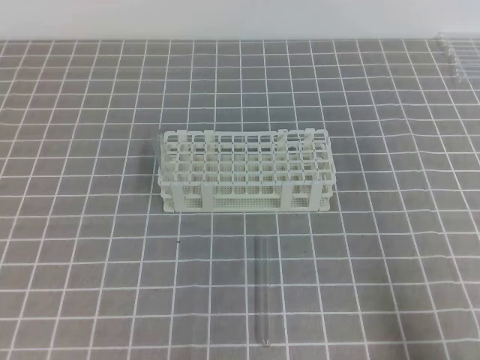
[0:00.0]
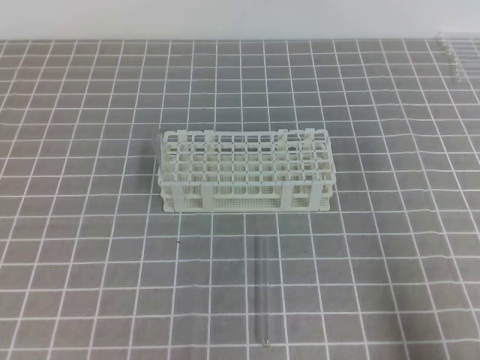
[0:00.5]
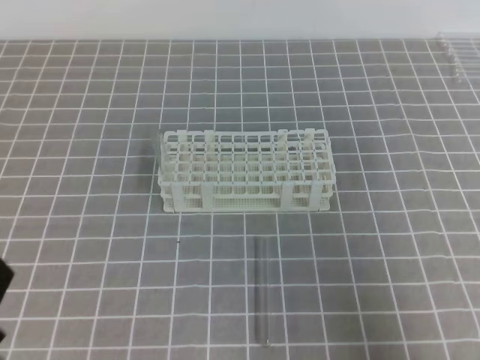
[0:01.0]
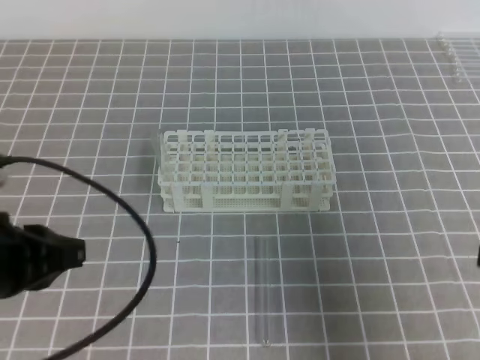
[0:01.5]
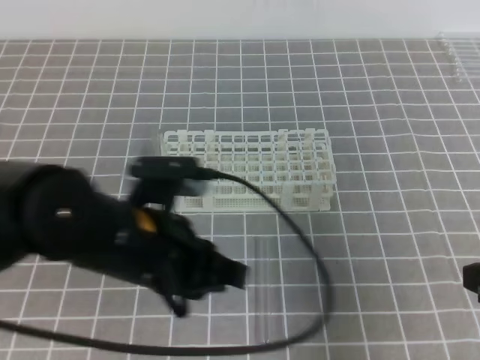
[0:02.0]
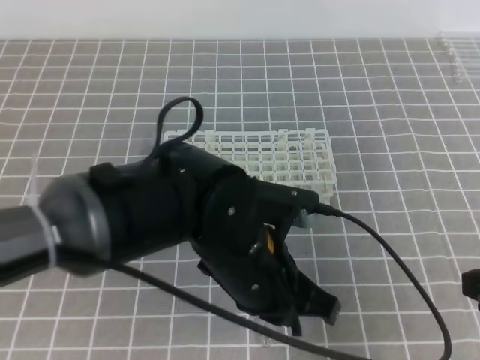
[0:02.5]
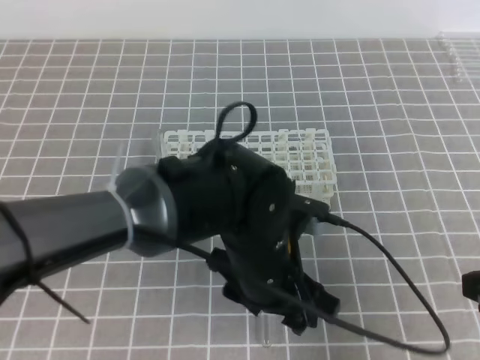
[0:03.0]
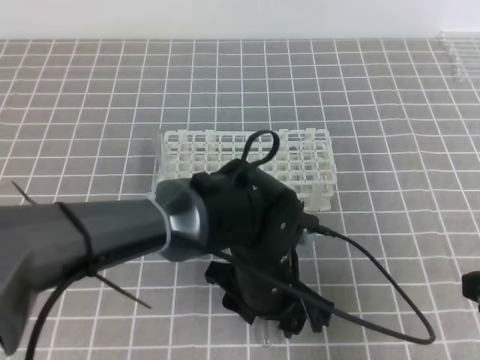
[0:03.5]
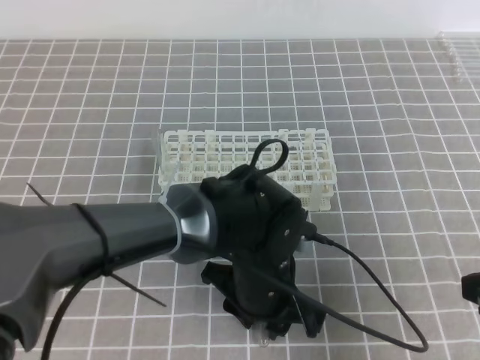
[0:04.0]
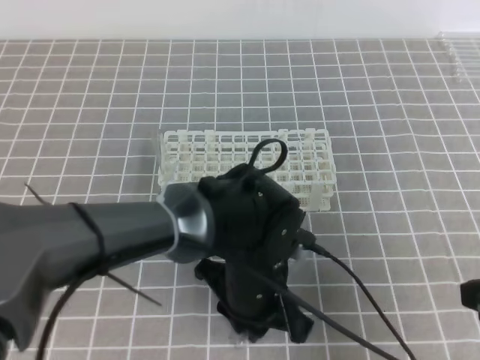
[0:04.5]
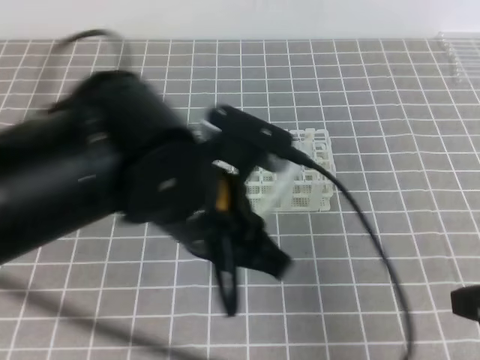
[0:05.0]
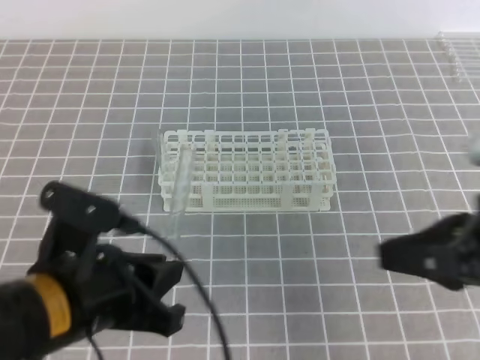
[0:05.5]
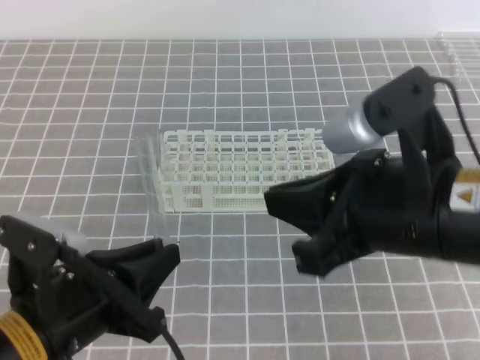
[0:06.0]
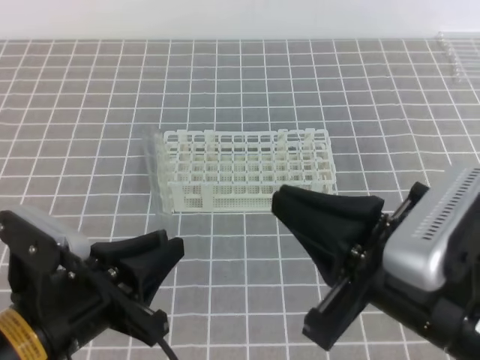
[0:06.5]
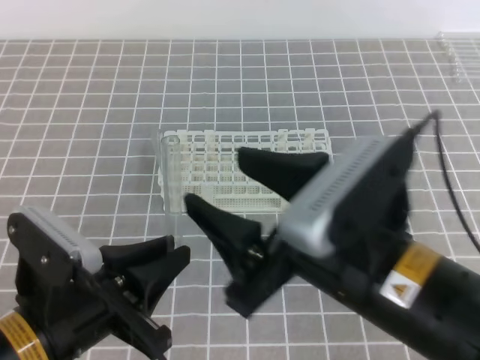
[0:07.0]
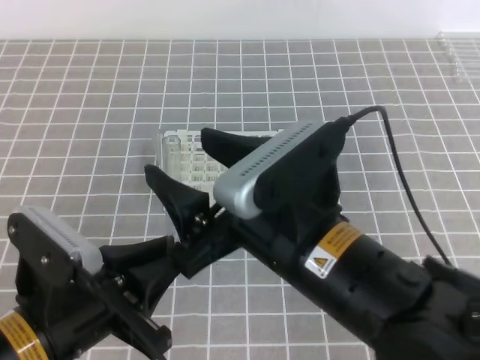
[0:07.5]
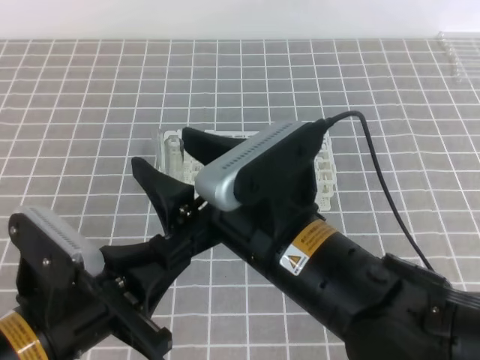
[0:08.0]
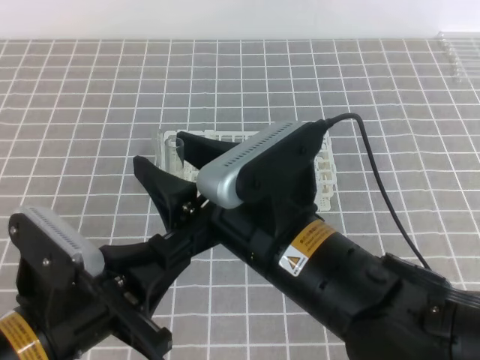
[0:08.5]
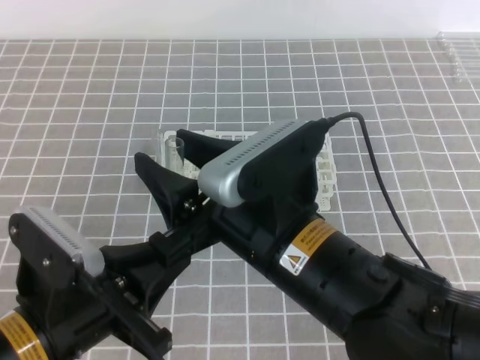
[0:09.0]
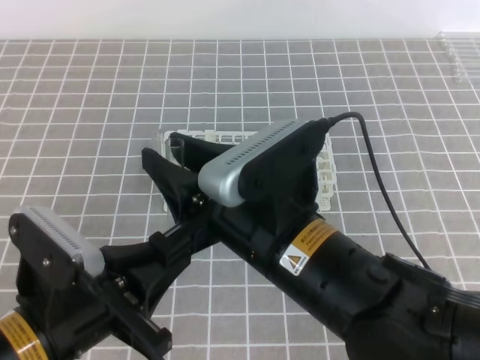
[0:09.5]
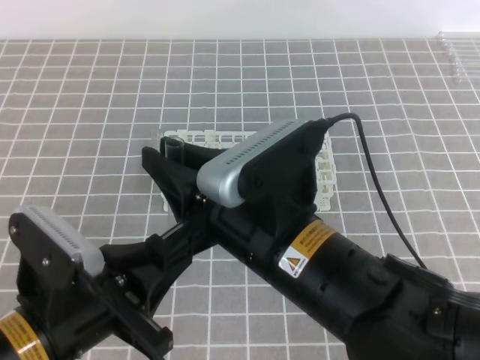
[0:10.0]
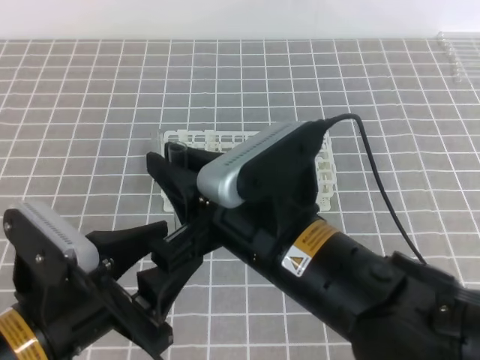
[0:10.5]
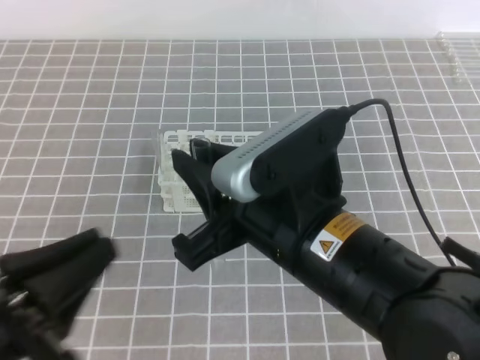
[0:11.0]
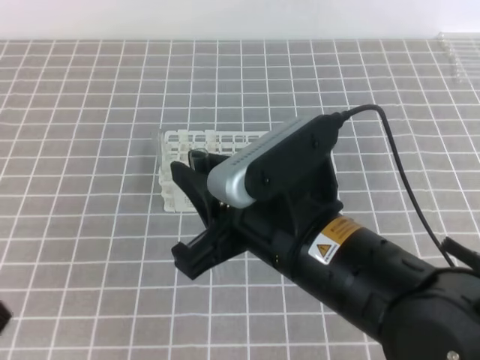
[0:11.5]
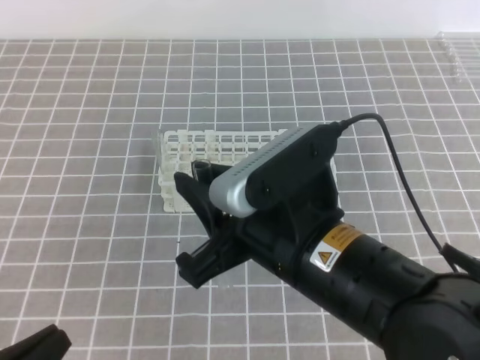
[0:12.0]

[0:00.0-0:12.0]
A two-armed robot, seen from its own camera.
0.0 to 2.0 s: The right gripper shifts roughly 10 cm forward and upward; the left gripper moves to the right and forward, about 20 cm.
2.0 to 4.0 s: The left gripper heads to the right and downward, covering about 15 cm, and opens up.
4.0 to 6.0 s: The left gripper heads to the left and backward, covering approximately 20 cm, and closes. Meanwhile the right gripper heads to the left and upward, covering about 15 cm.
6.0 to 8.0 s: The right gripper heads to the left, covering some 10 cm, and opens up.
8.0 to 10.0 s: The right gripper closes up.
10.0 to 12.0 s: The left gripper shifts approximately 15 cm to the left and backward, and opens and closes again.

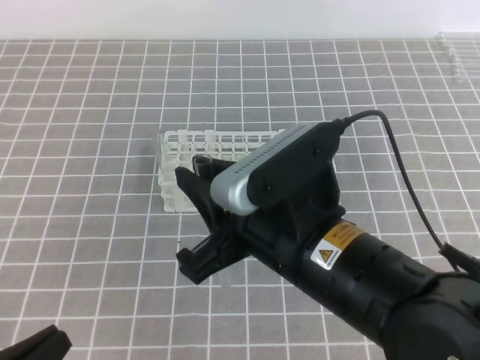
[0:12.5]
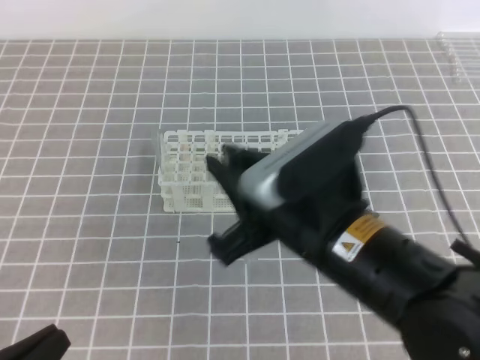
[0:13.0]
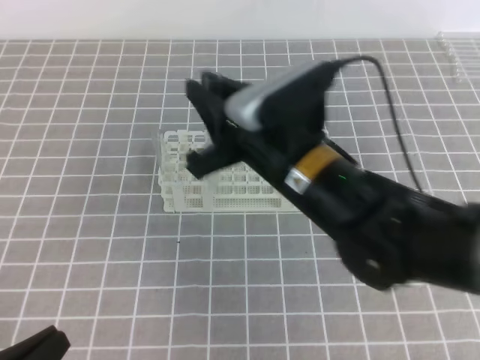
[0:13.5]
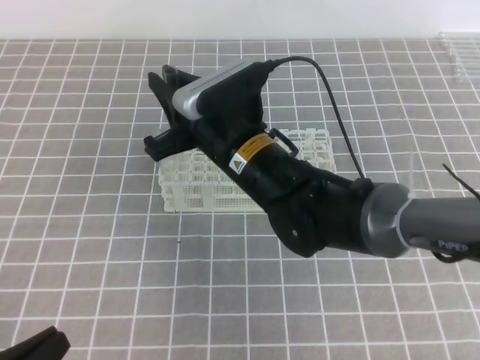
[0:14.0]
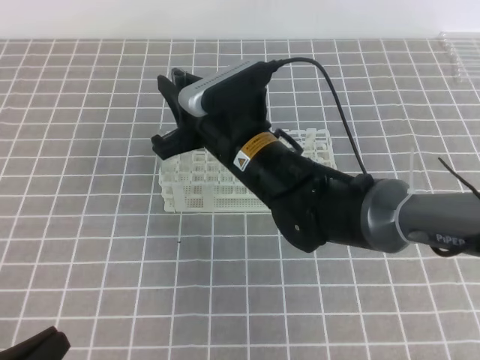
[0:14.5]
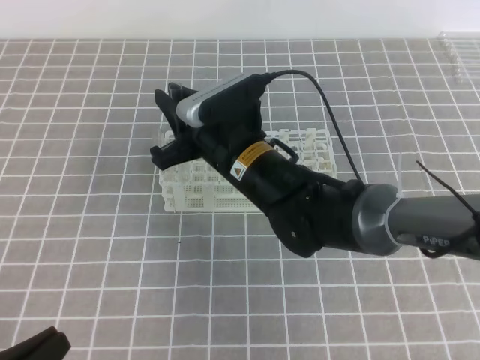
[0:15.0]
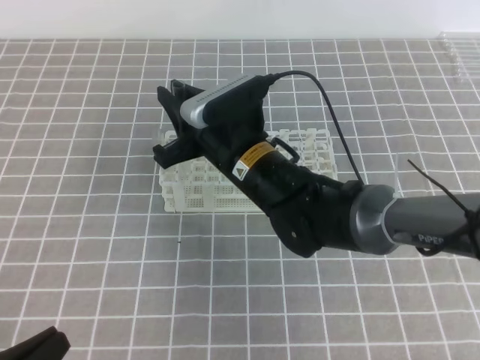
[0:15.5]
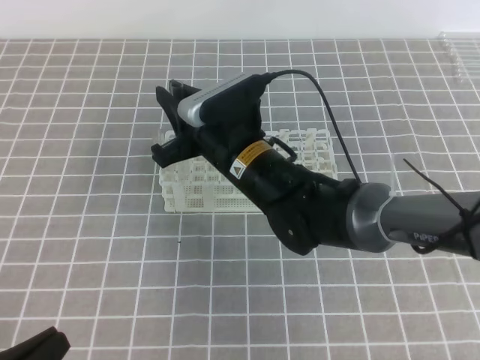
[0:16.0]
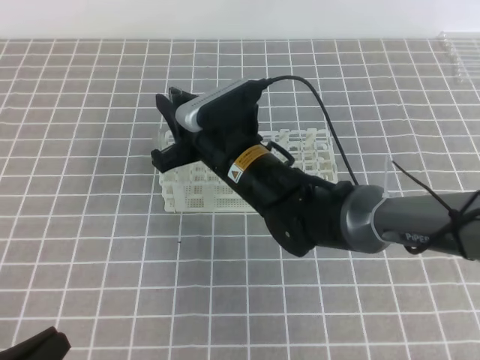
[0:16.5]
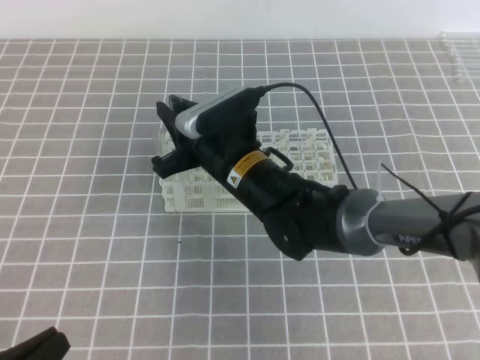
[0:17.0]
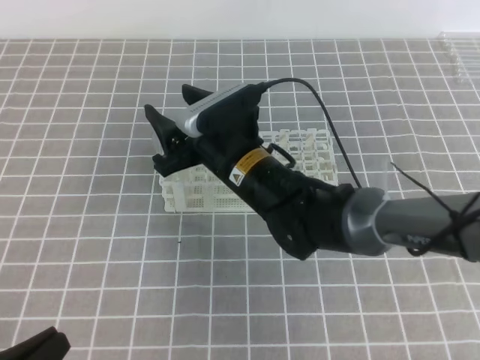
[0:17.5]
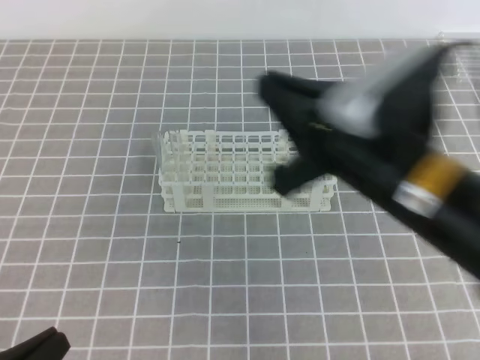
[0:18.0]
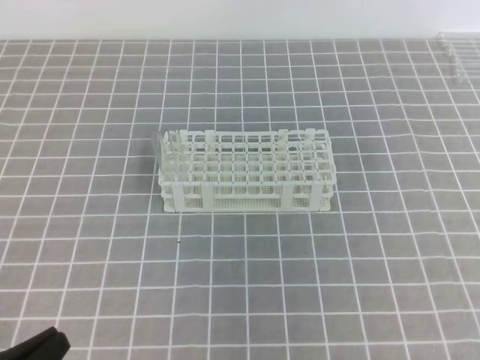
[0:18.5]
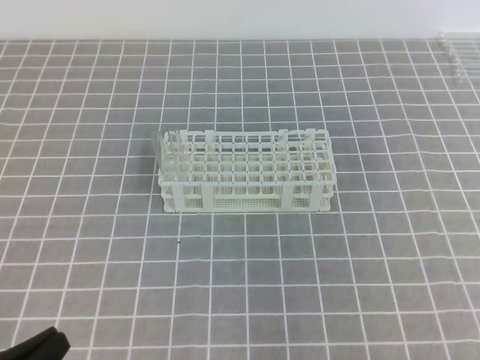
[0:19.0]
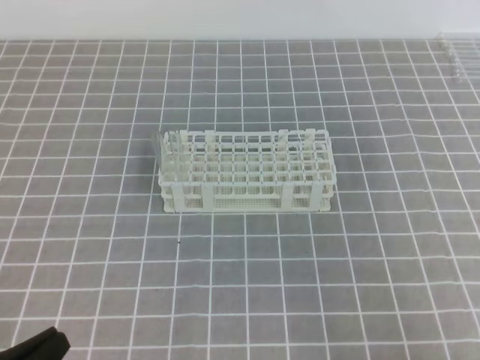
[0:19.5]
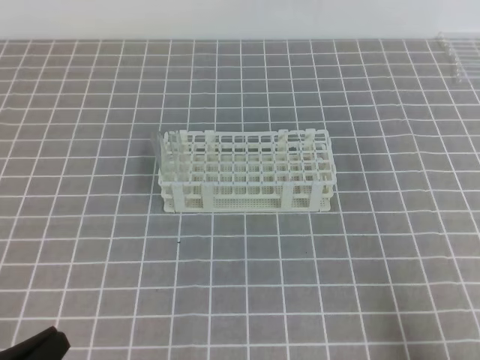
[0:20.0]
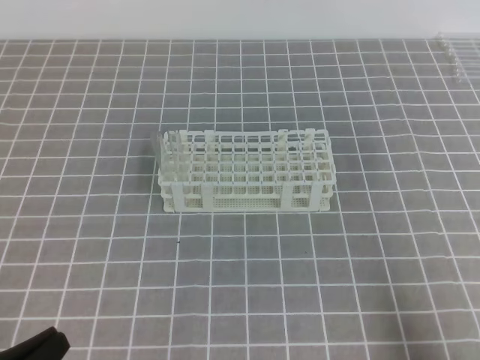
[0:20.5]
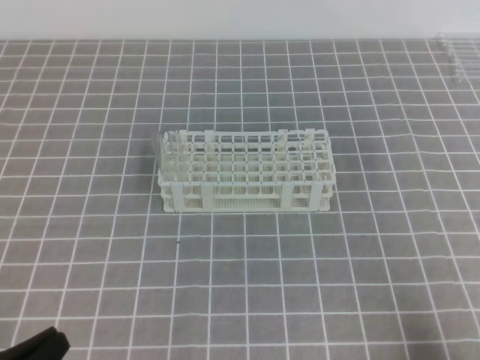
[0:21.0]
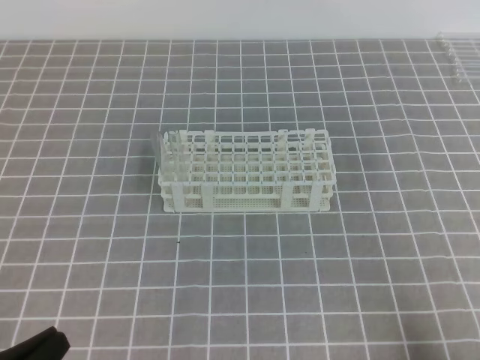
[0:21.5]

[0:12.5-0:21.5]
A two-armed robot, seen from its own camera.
12.5 to 14.5 s: The right gripper heads forward, covering roughly 15 cm.
14.5 to 17.0 s: The grippers move only a little.
17.0 to 19.5 s: The right gripper shifts about 40 cm to the right and backward, and opens, then closes once more.

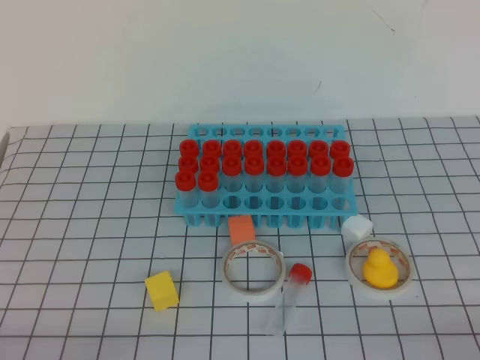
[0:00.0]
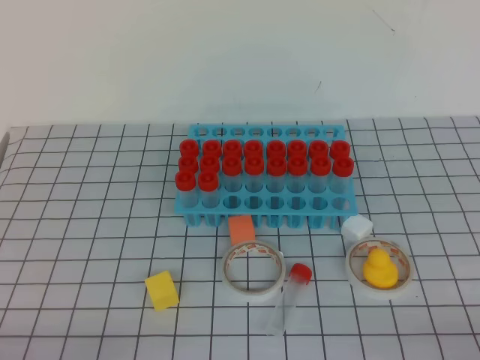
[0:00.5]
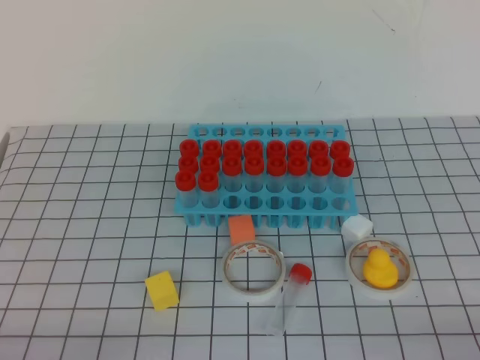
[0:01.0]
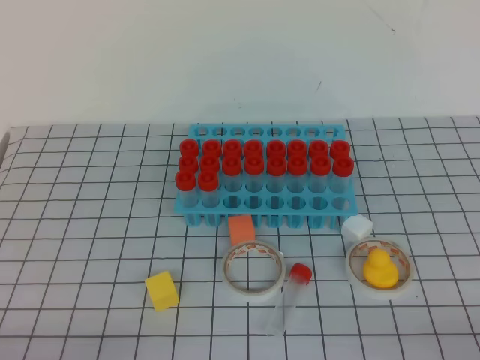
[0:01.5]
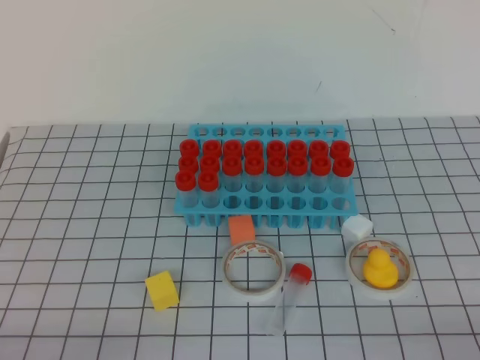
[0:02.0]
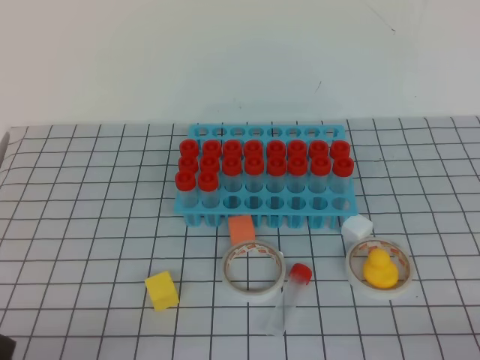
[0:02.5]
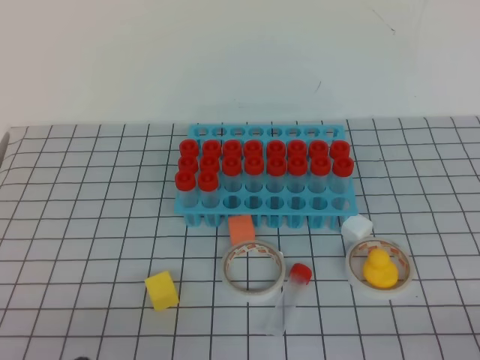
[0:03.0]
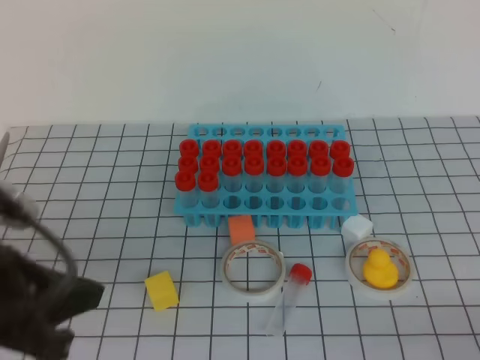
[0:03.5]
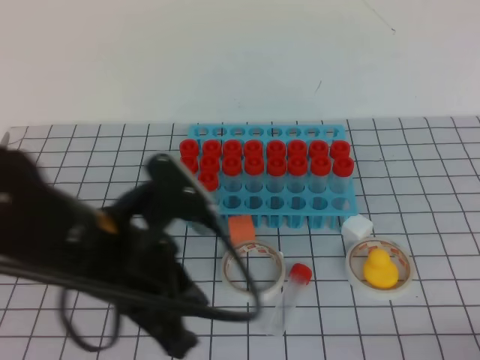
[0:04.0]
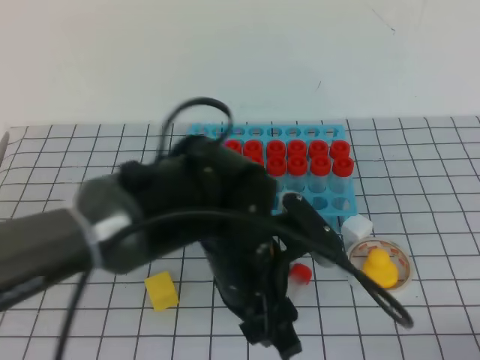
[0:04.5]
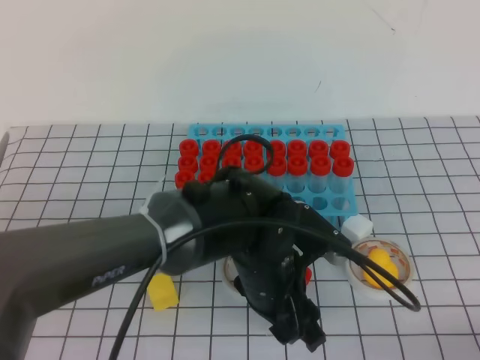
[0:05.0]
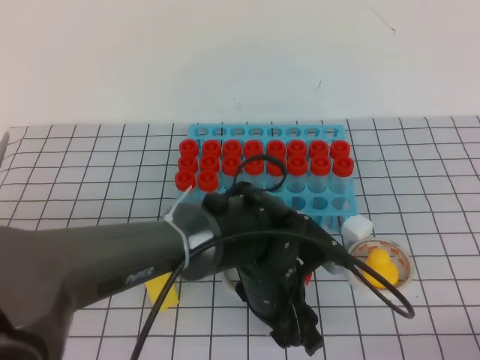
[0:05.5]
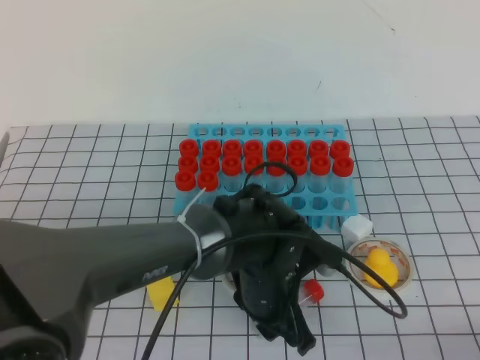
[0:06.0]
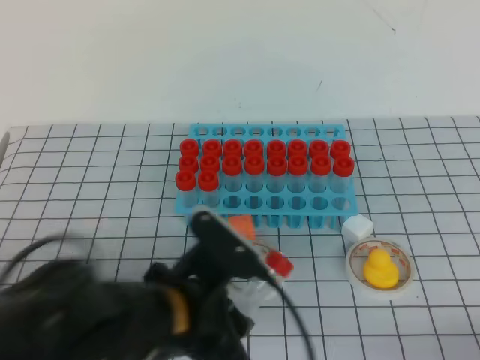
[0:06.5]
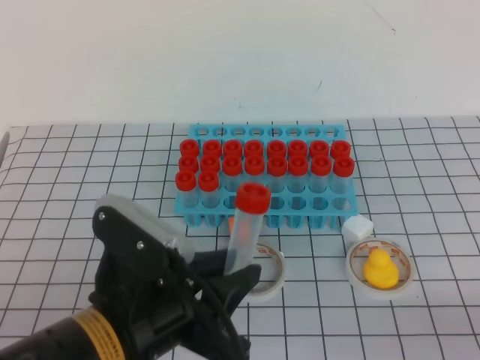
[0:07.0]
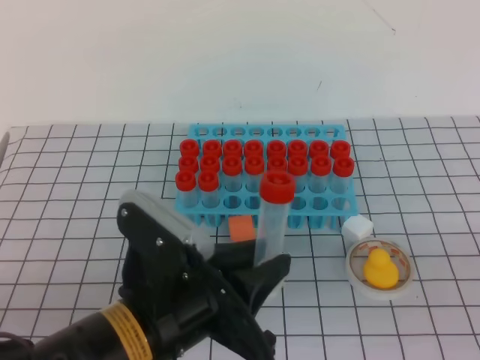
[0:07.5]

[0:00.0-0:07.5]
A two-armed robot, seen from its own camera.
0.0 to 2.0 s: Both grippers stay put.
2.0 to 4.0 s: The left gripper moves forward, upward and to the right, about 25 cm.
4.0 to 5.5 s: The left gripper is displaced to the right, downward and forward by about 20 cm, and opens its fingers.
5.5 to 7.5 s: The left gripper goes some 20 cm backward, to the left and upward, and closes its fingers. Meanwhile the right gripper shifts some 10 cm upward.
